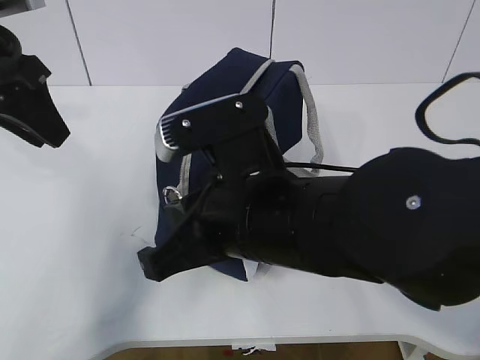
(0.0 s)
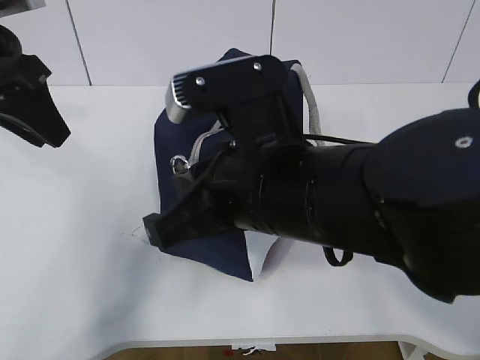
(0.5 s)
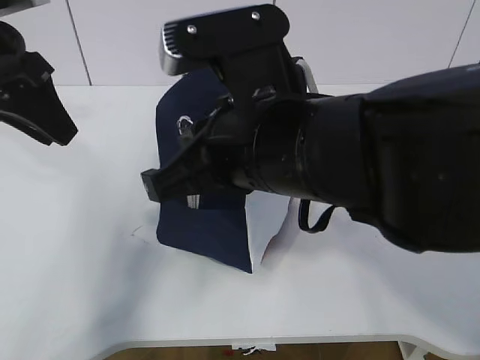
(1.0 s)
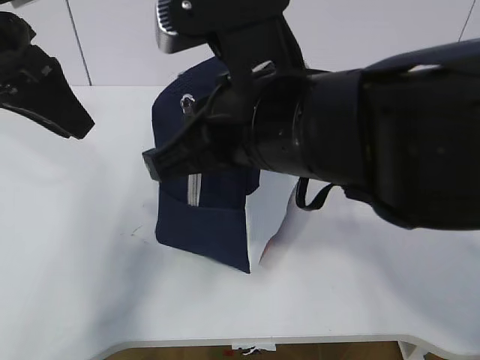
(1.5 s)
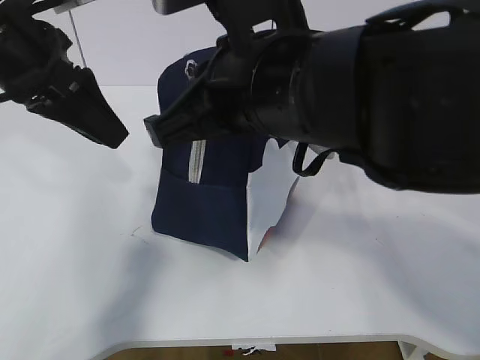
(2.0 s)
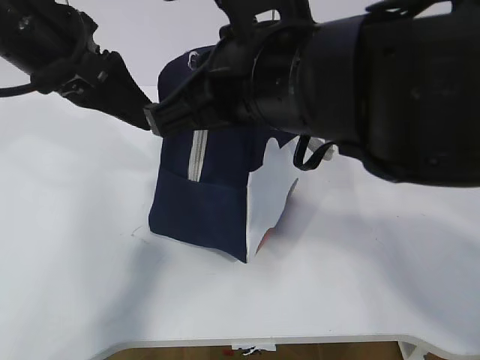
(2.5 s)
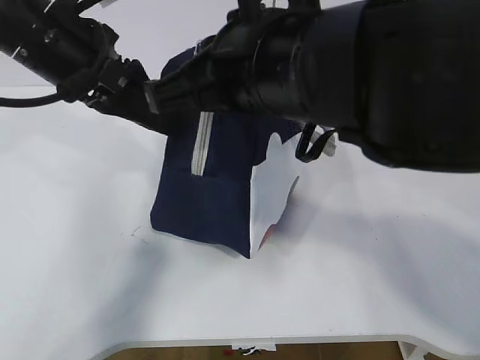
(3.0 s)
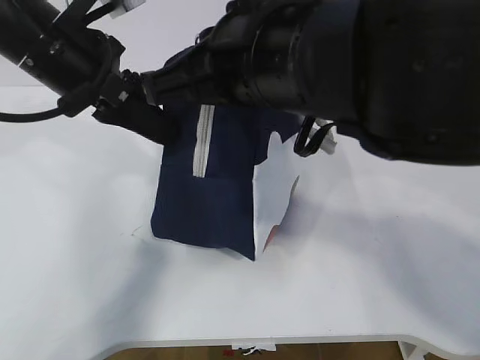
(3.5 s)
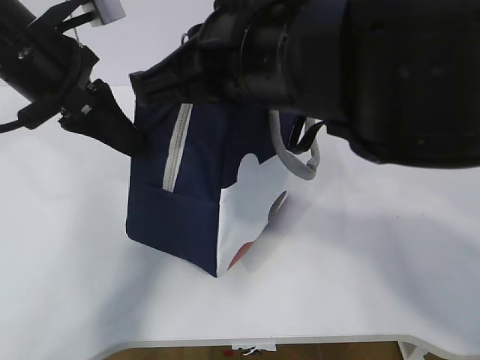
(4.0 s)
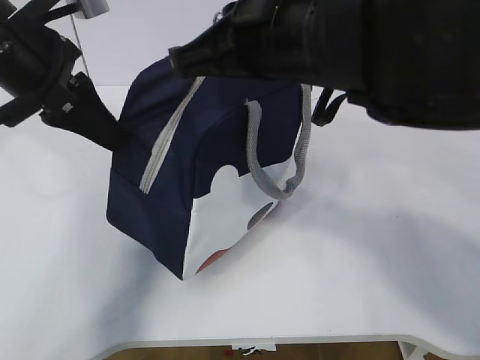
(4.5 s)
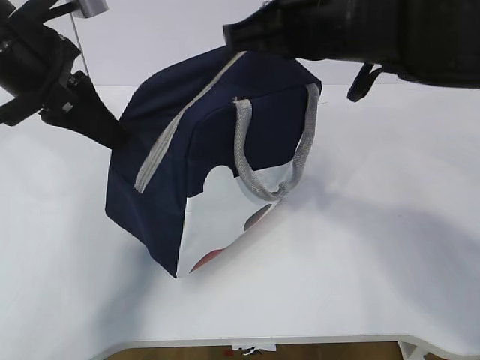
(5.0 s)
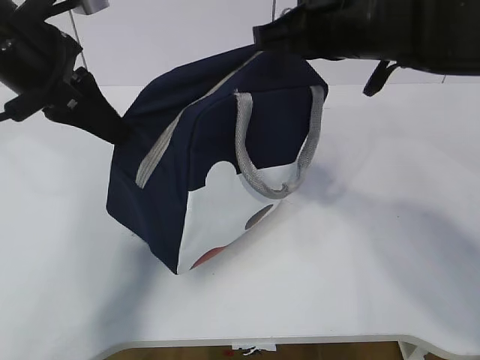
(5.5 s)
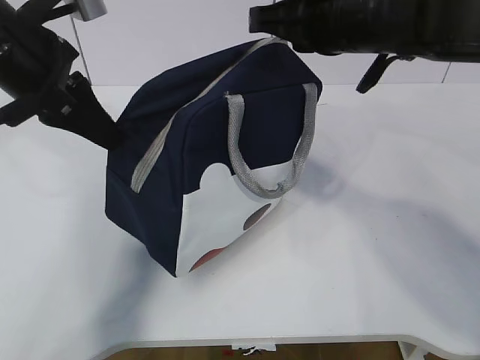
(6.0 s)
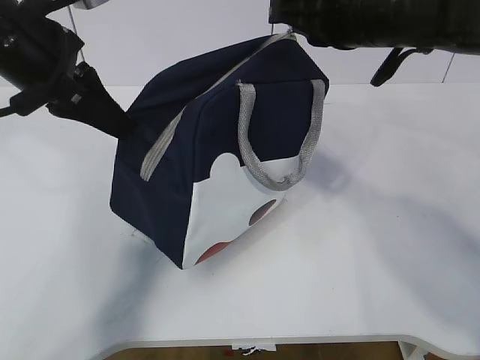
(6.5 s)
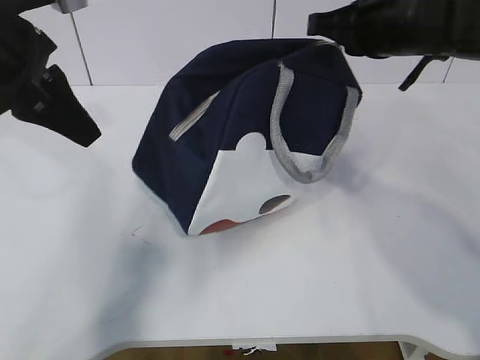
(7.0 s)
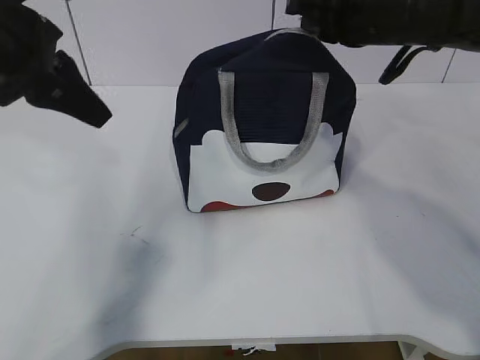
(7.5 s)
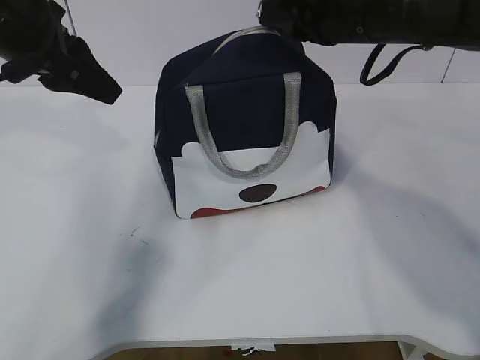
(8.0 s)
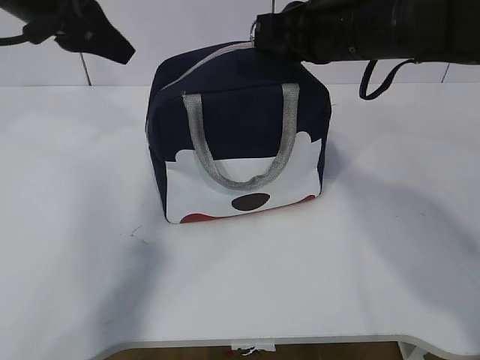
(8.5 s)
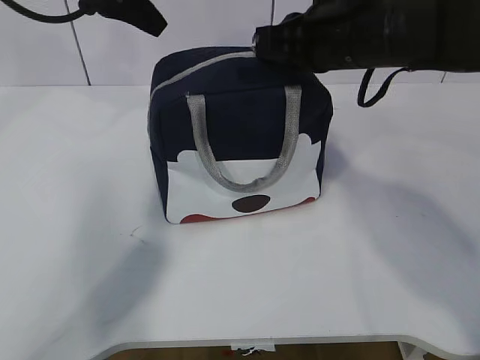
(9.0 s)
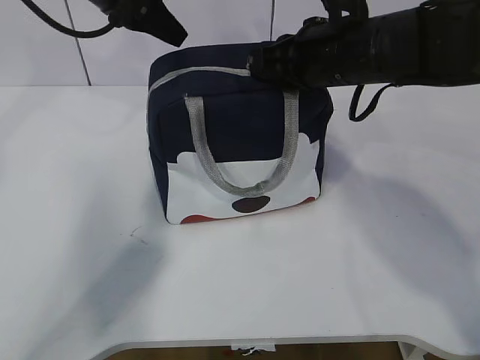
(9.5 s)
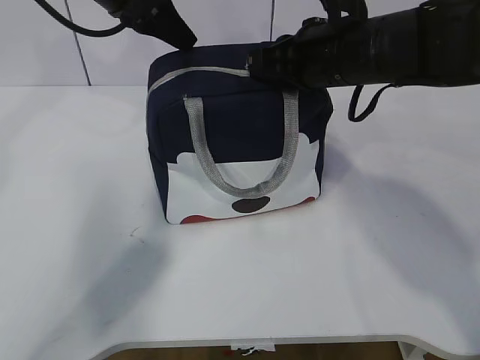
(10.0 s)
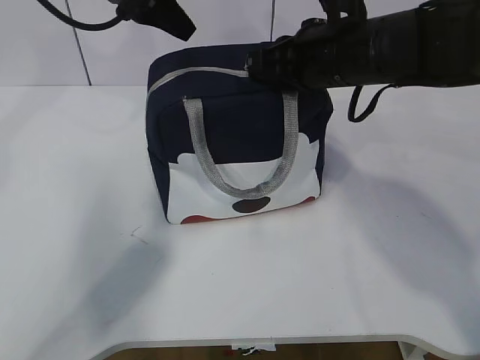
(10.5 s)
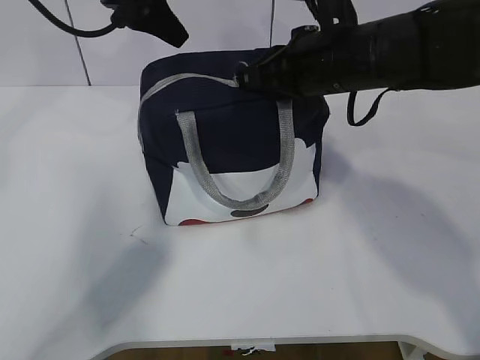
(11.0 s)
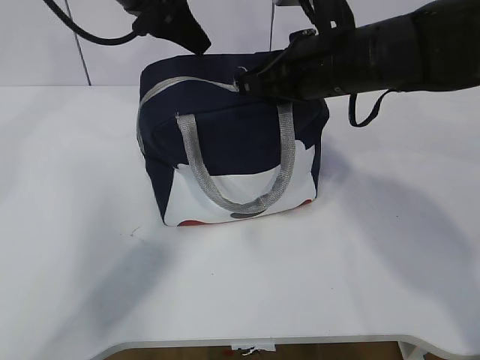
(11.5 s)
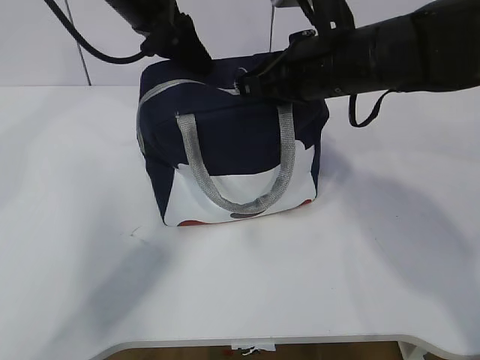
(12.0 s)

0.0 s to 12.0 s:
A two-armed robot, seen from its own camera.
Step, 0.0 to 11.5 s: Pull the zipper with your right hand.
0.0 to 2.0 s: The right gripper travels upward by roughly 10 cm.
2.0 to 4.0 s: The left gripper closes.
4.0 to 6.0 s: The right gripper goes about 10 cm forward and to the right.
6.0 to 8.0 s: The left gripper opens up.
8.0 to 10.0 s: The left gripper goes some 10 cm forward and to the right. The right gripper changes place by some 5 cm.
10.0 to 12.0 s: The grippers stay close to where they were, moving slightly.

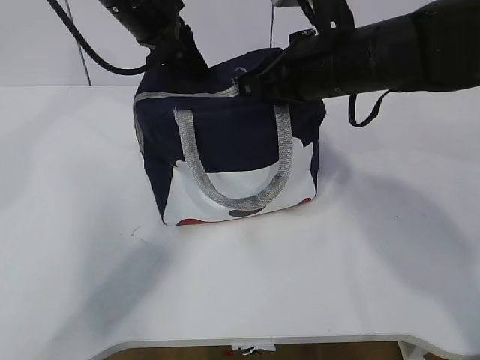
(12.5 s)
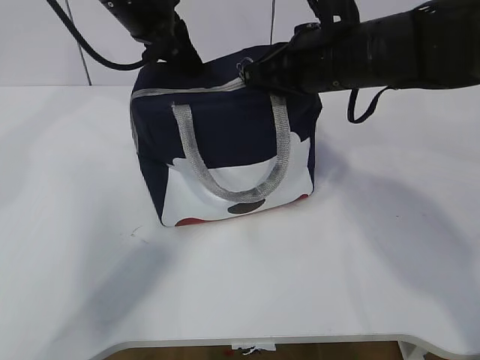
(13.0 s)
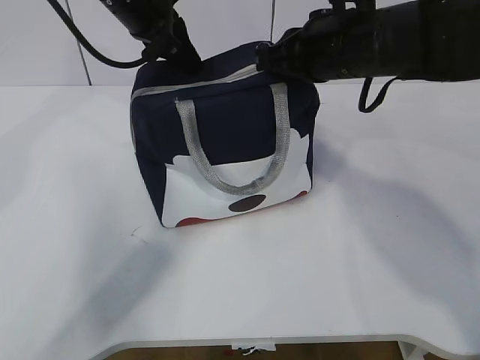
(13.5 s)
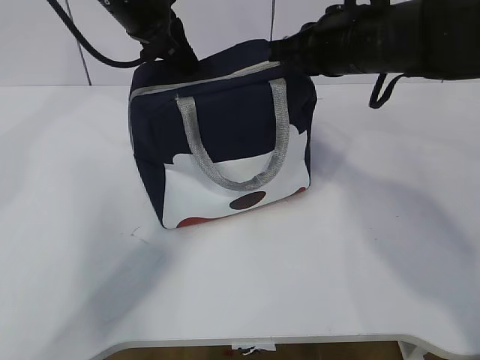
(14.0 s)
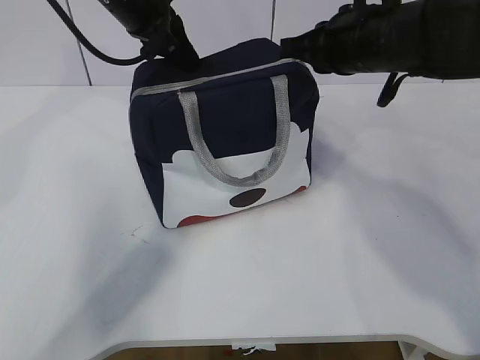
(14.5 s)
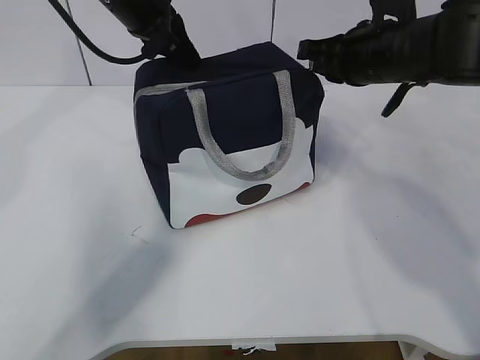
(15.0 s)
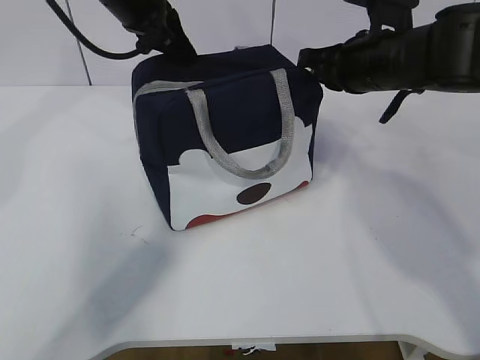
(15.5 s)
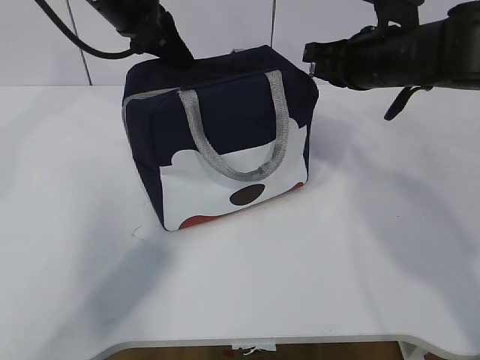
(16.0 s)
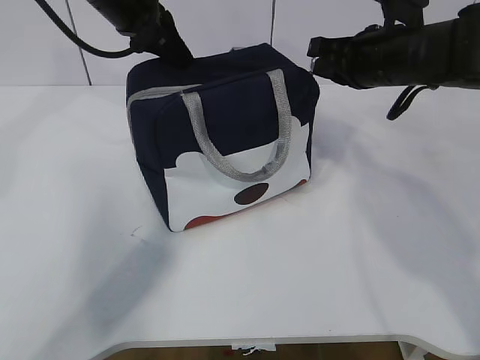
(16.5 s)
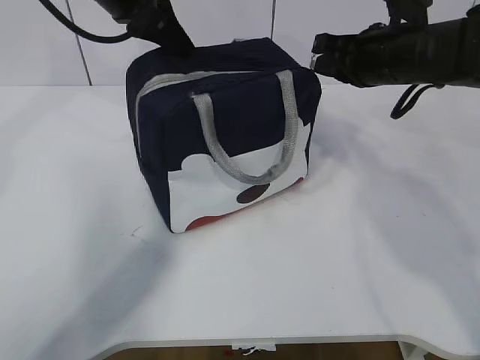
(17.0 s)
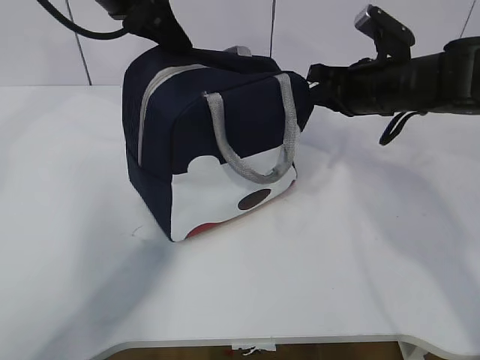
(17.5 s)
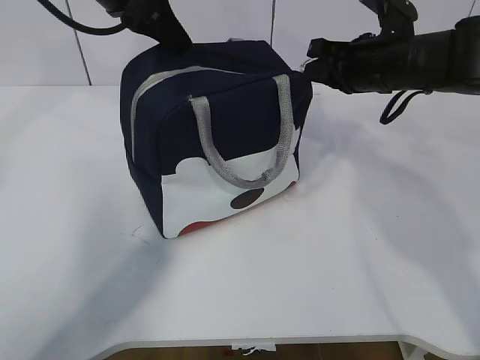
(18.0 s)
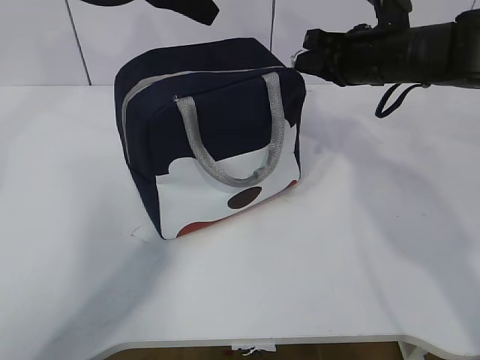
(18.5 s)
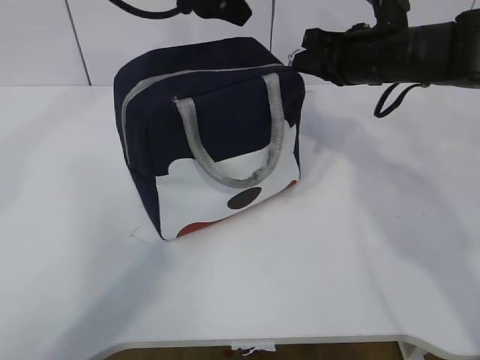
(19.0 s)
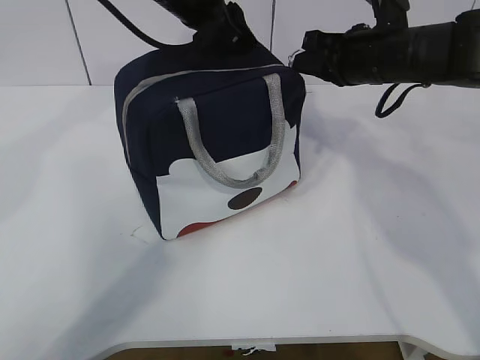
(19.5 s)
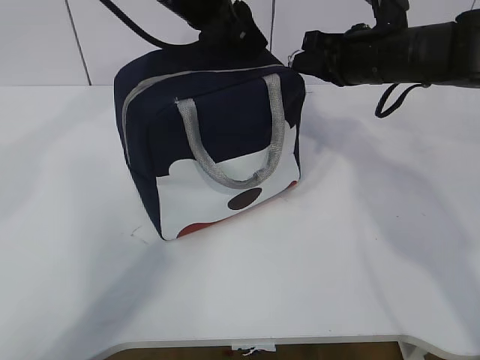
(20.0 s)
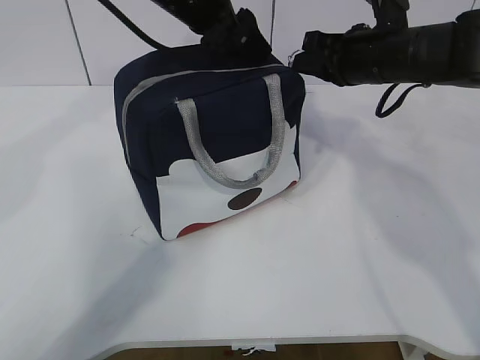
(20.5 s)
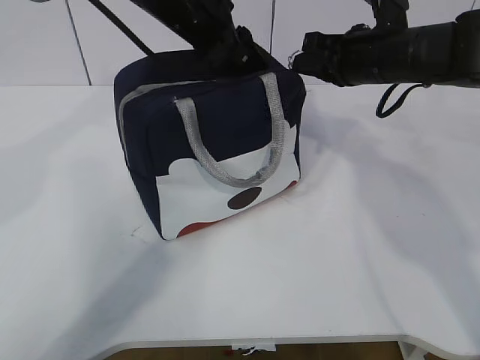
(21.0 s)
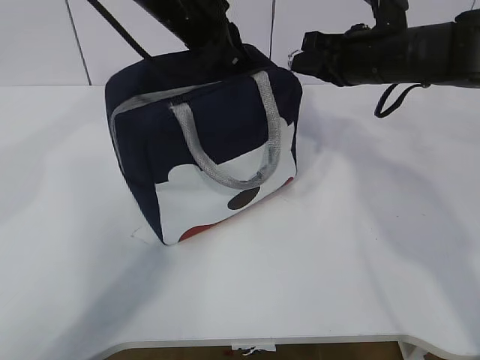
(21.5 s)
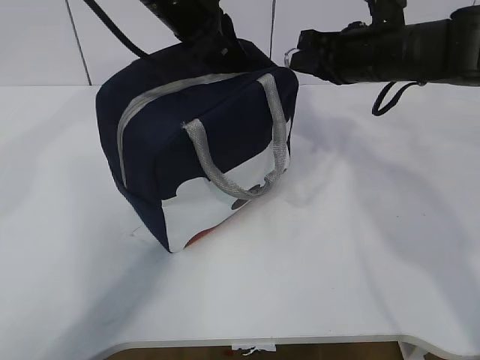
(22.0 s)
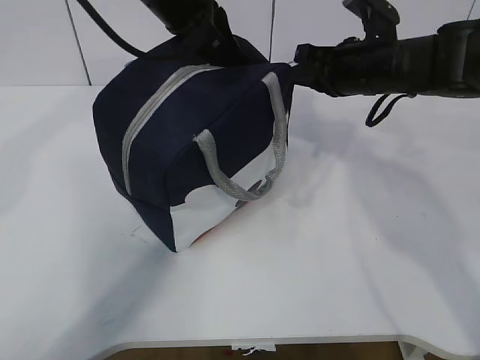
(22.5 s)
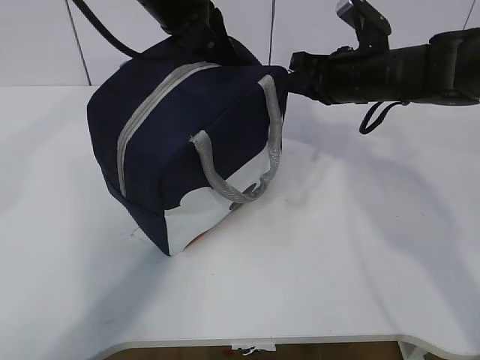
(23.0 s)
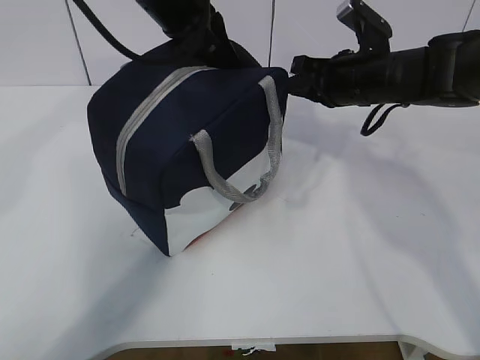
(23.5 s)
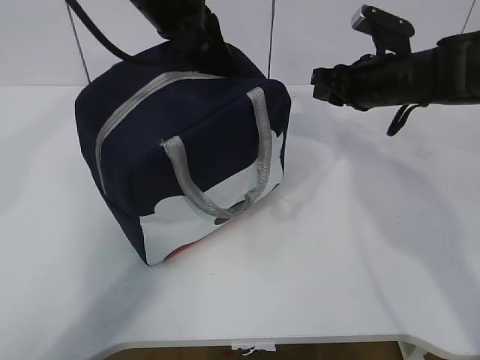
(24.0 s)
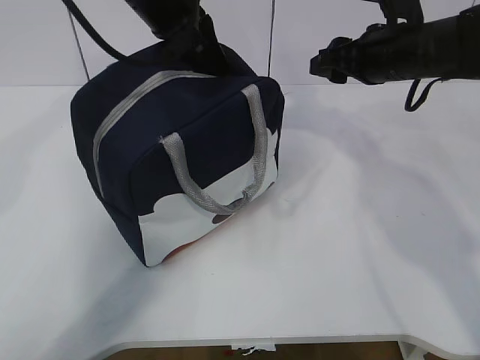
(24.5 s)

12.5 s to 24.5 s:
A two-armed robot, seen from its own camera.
Step, 12.5 to 13.5 s: Grab the lunch bag with your left hand.
14.5 to 16.5 s: The right gripper changes place by about 5 cm.
16.5 to 18.5 s: The left gripper opens.
18.5 to 20.5 s: The left gripper moves to the right and downward, approximately 10 cm.
20.5 to 22.5 s: The left gripper closes its fingers.
22.5 to 24.5 s: The right gripper opens.

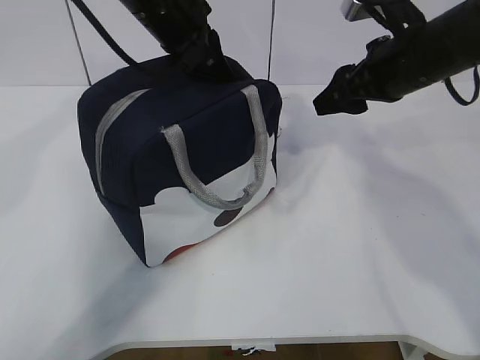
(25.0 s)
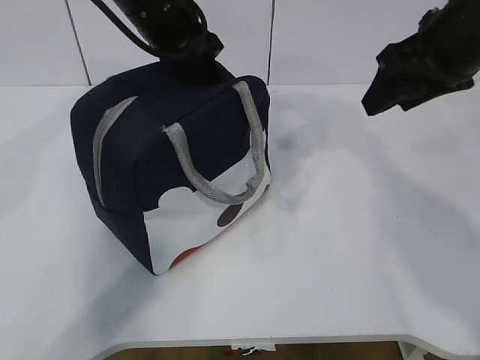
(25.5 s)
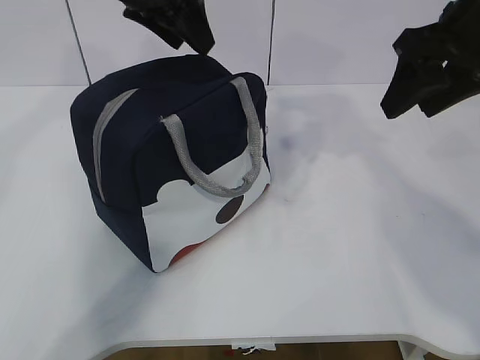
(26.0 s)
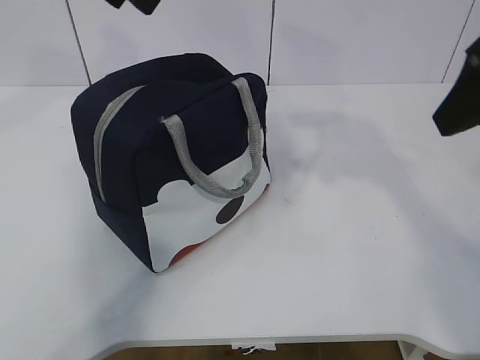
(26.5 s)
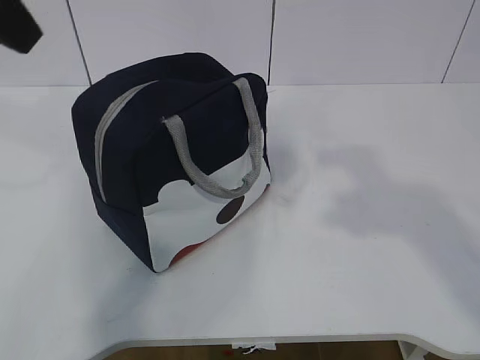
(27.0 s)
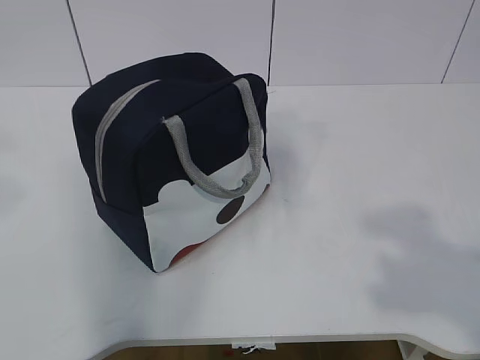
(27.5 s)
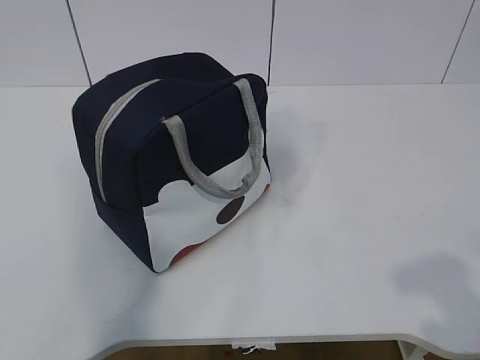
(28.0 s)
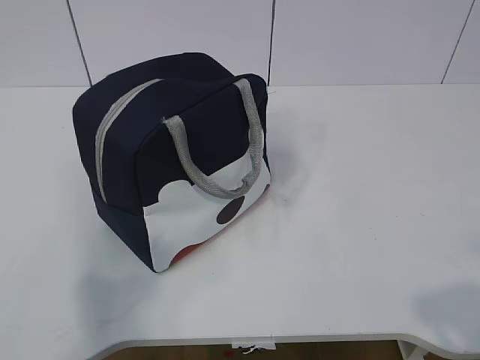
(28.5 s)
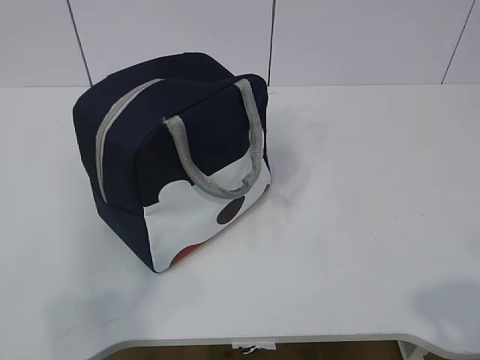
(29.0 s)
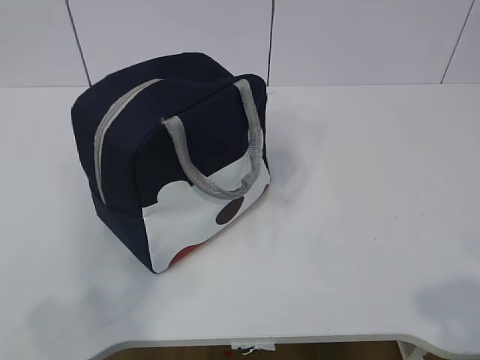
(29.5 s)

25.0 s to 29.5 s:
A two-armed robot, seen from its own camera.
25.0 to 27.0 s: The right gripper shifts roughly 30 cm backward and upward. Meanwhile the left gripper goes some 25 cm backward, upward and to the left, and opens up.
27.0 to 29.5 s: The right gripper shifts some 20 cm downward and backward. Meanwhile the left gripper heads backward, downward and to the left, covering some 30 cm.
